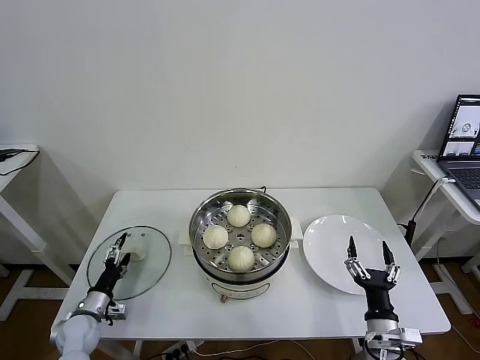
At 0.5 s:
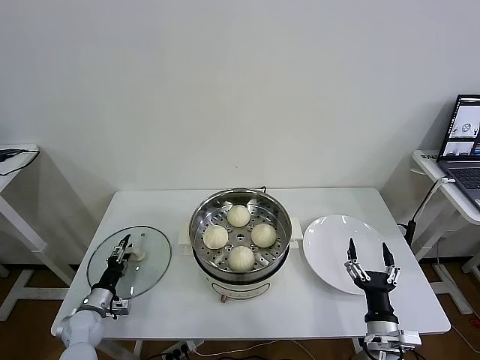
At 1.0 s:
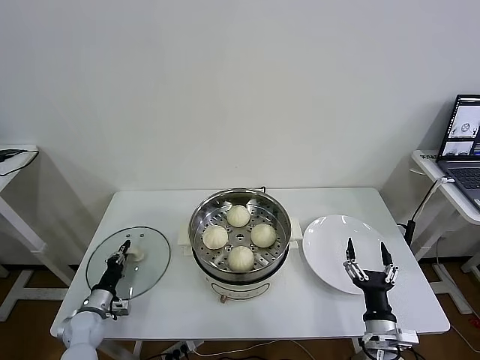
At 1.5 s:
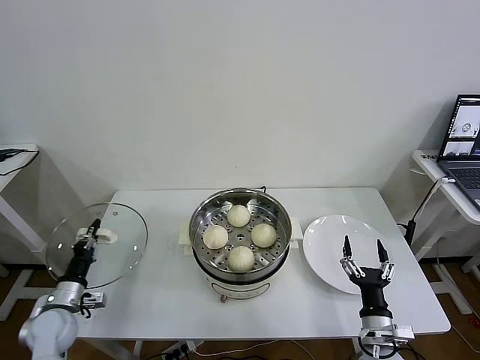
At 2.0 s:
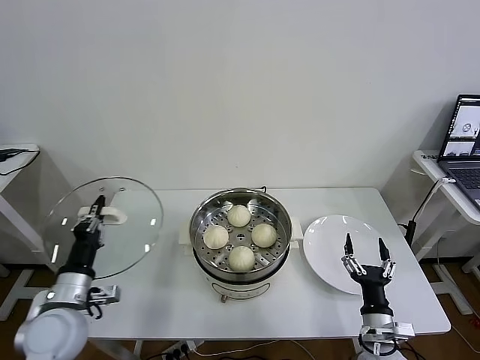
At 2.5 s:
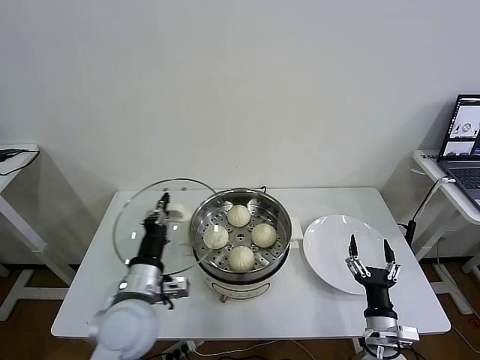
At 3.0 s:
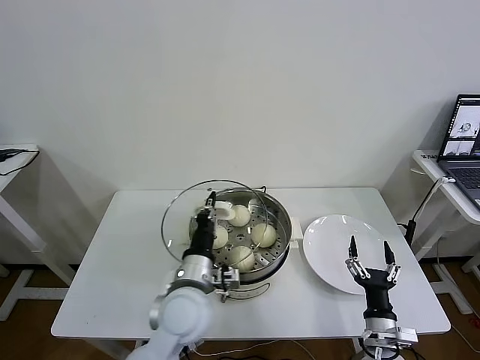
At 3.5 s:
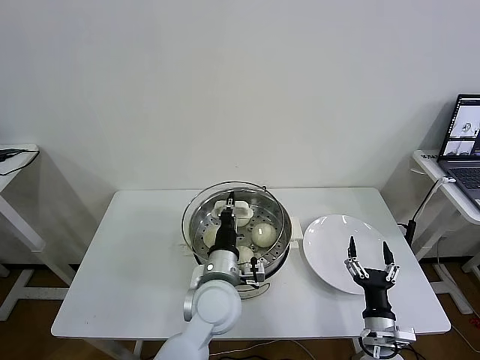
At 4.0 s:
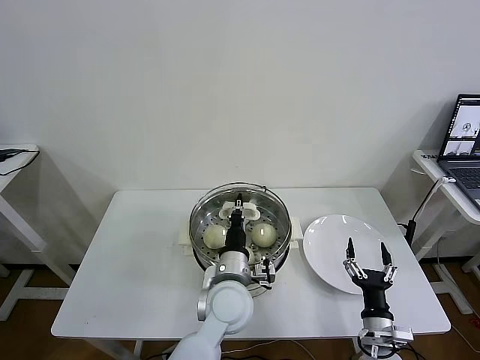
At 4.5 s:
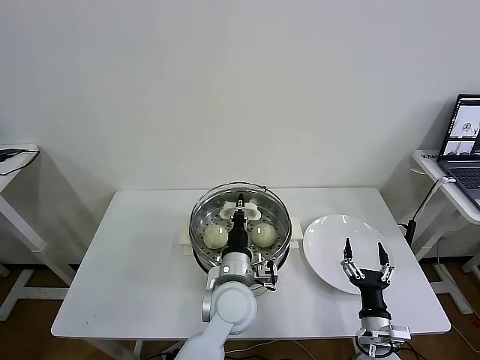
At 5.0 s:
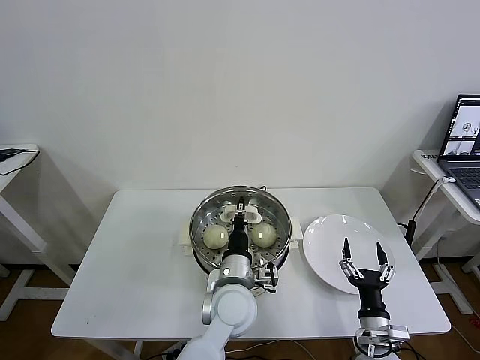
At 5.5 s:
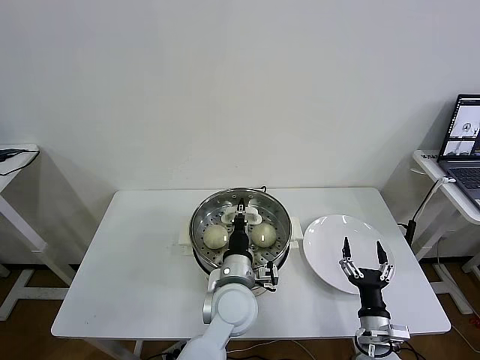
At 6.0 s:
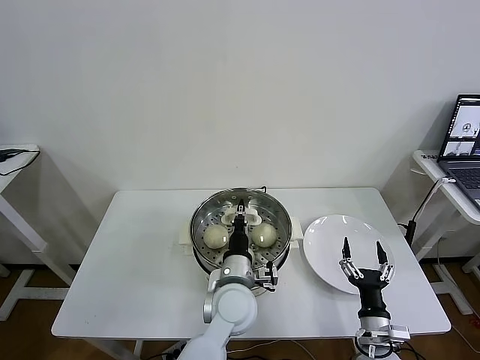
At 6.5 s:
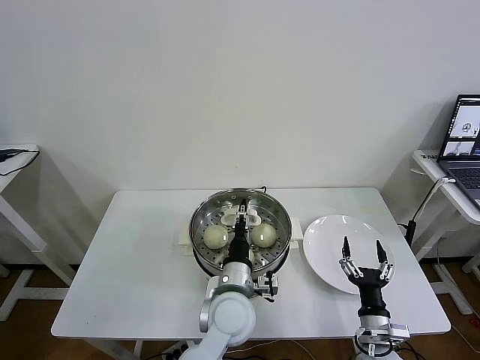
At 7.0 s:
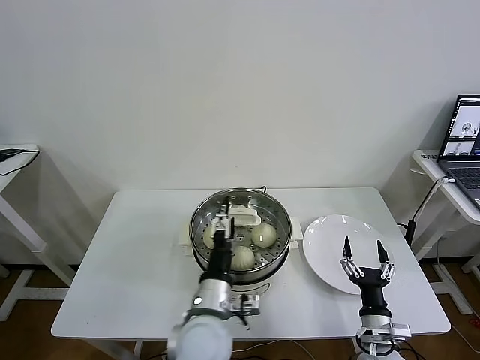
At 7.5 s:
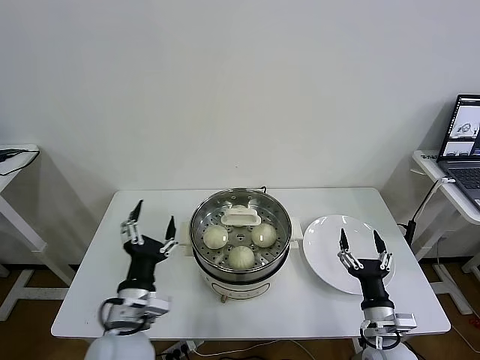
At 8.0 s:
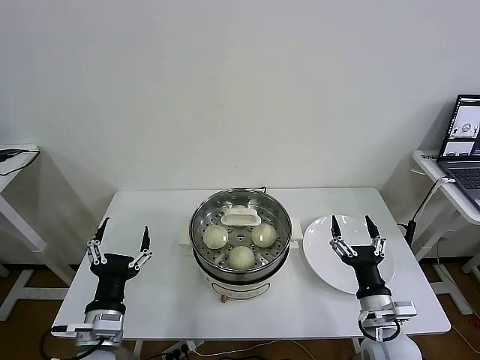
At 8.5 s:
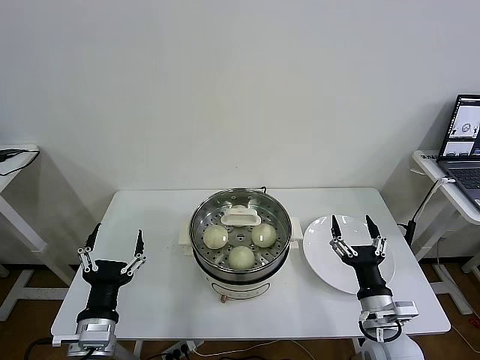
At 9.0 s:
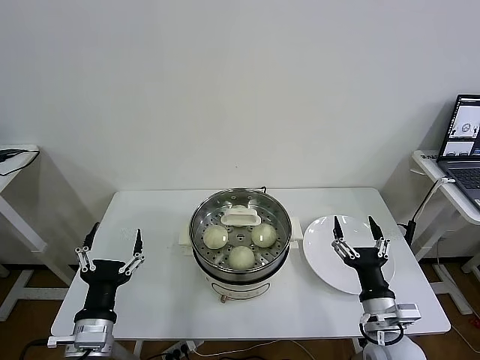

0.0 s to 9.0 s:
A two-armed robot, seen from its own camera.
Task of the whole recording: take steamed baozi put them in steamer then cover it.
Step, 1.5 to 7.0 s: Place the pot lid on the steamer with left gripper.
0.0 to 2.0 s: The left gripper shifts about 20 cm upward, and closes.
2.0 to 4.5 s: The left gripper moves to the right, roughly 30 cm.
4.5 to 7.0 s: The left gripper is displaced backward by roughly 5 cm, and opens.
7.0 to 9.0 s: The left gripper shifts approximately 20 cm to the left, while the right gripper is displaced upward by some 10 cm.
